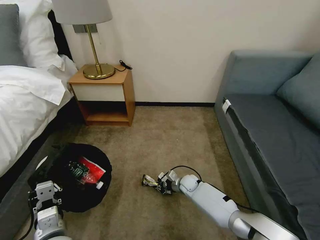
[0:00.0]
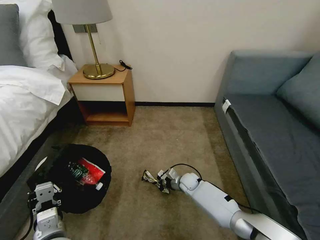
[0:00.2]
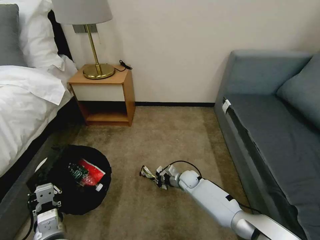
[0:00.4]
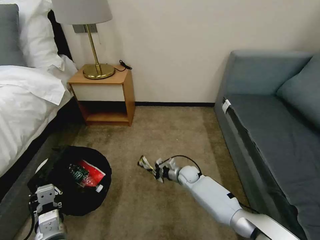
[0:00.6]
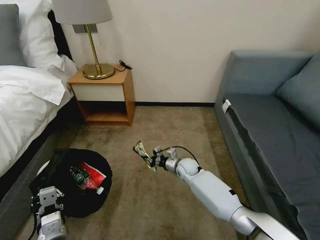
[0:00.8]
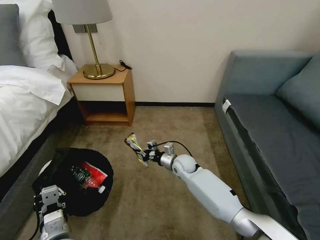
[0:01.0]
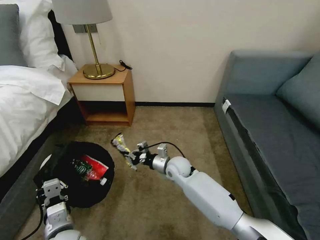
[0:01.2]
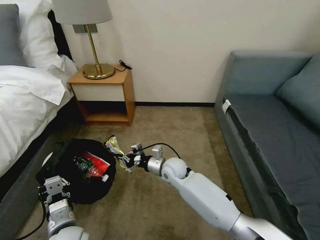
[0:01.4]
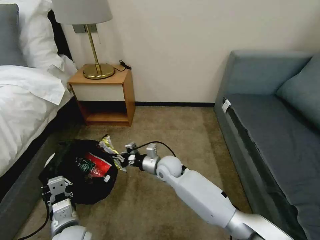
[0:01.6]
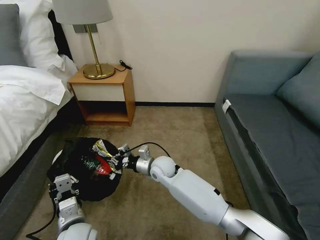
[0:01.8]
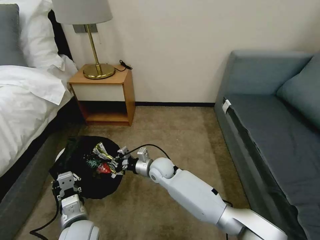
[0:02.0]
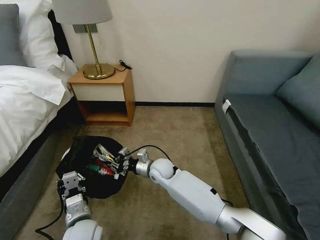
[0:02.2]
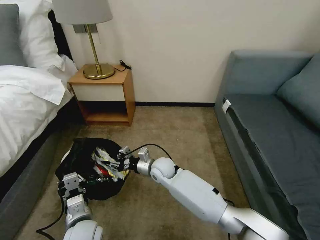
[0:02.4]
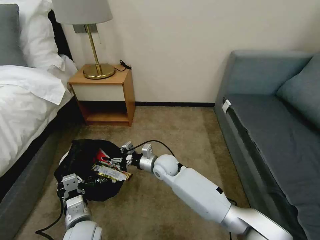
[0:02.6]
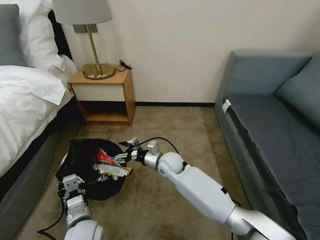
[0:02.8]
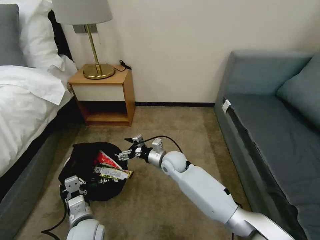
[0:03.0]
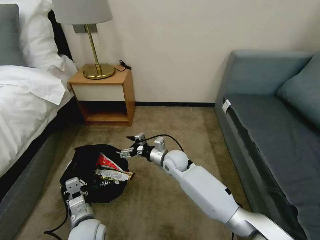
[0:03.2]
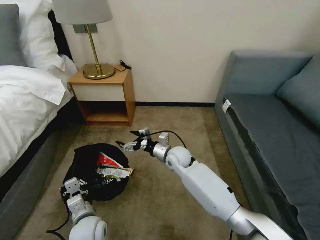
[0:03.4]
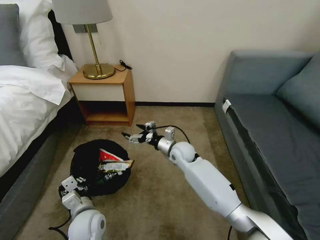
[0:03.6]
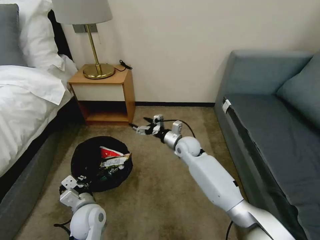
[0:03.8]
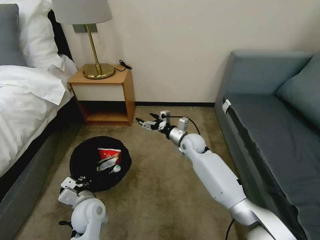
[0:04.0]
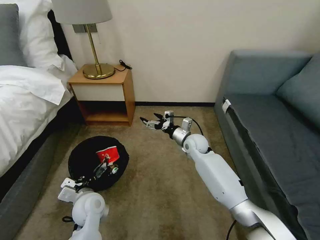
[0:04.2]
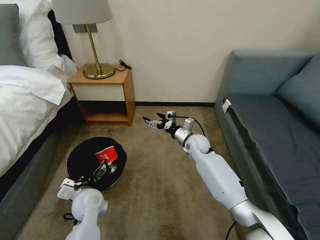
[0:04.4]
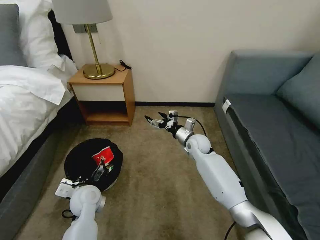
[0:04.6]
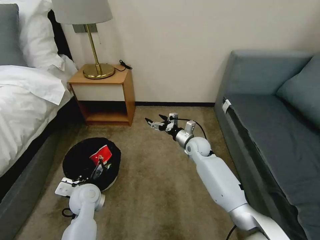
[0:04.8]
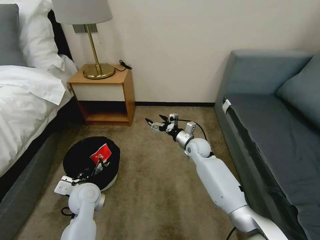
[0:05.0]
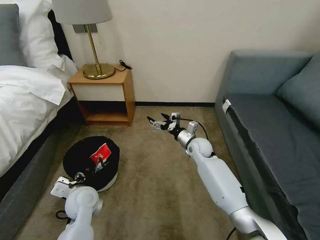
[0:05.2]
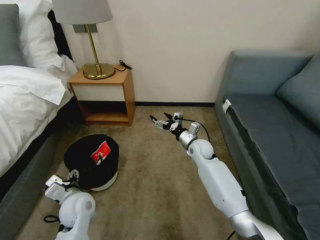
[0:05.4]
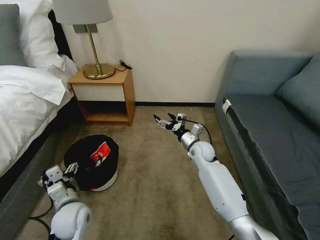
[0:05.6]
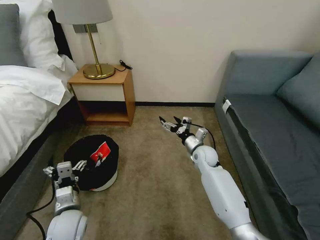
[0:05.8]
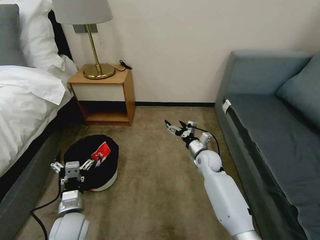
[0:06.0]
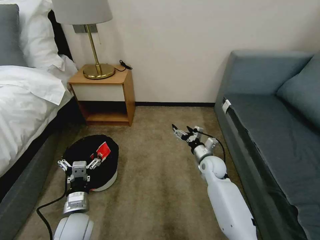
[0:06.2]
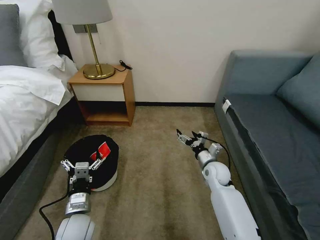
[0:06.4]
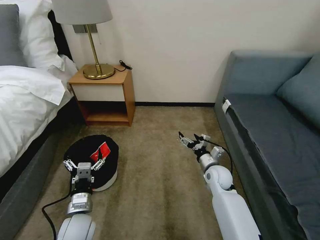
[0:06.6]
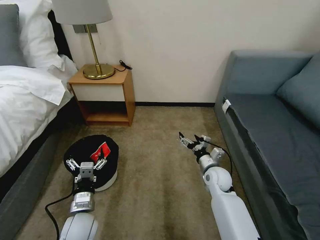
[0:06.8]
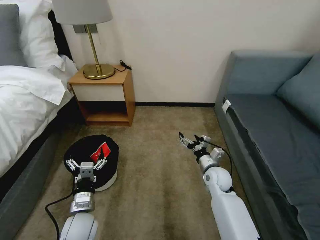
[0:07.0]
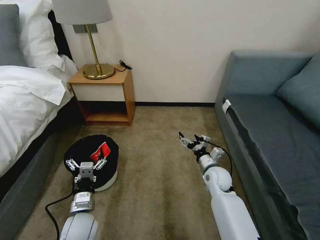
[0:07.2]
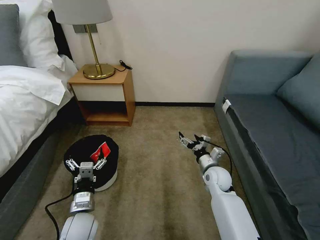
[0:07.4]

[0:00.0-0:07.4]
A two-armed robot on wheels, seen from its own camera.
Task of the whole recording: Pick up the trash bin, then pick up the garbage on the floor and place it into the trash bin.
0:00.0 to 0:01.4: The right gripper is displaced upward and to the left by roughly 20 cm.
0:01.4 to 0:03.0: The right gripper opens its fingers, while the left gripper changes place by about 5 cm.
0:03.0 to 0:04.4: The left gripper travels forward by some 10 cm. The right gripper moves to the right and forward, about 15 cm.
0:04.4 to 0:06.0: The grippers both shift backward by approximately 5 cm. The left gripper opens its fingers.
0:06.0 to 0:07.4: The right gripper is displaced backward by approximately 5 cm.
